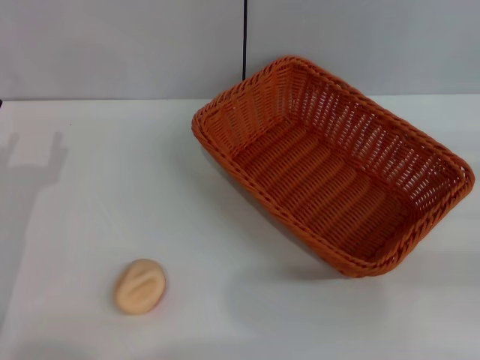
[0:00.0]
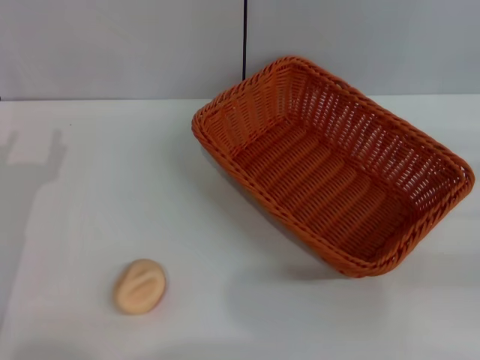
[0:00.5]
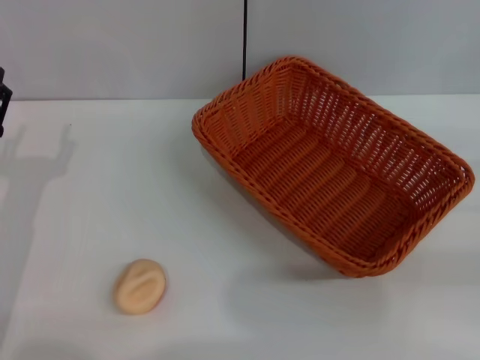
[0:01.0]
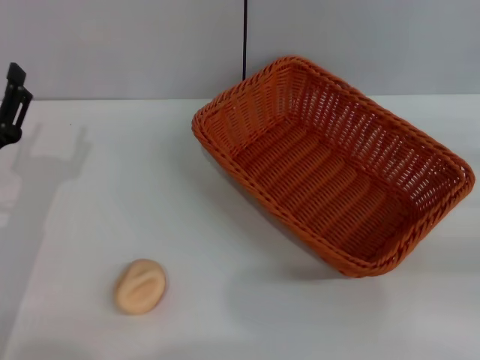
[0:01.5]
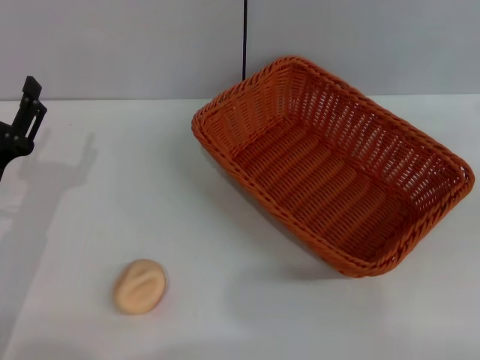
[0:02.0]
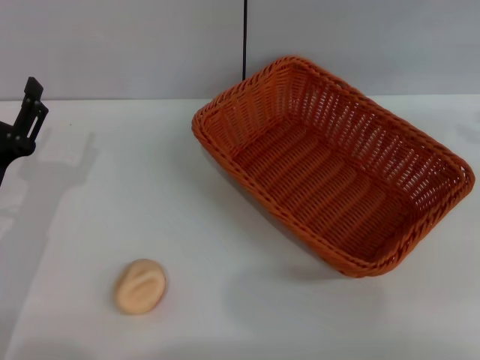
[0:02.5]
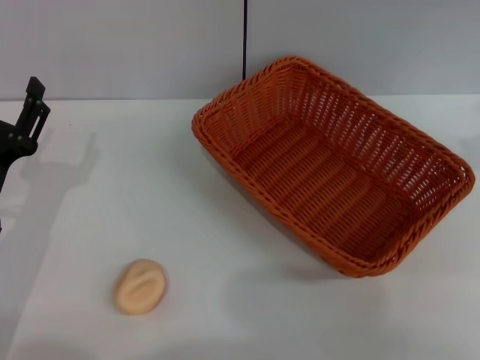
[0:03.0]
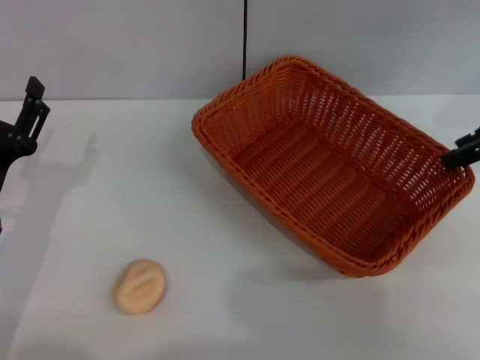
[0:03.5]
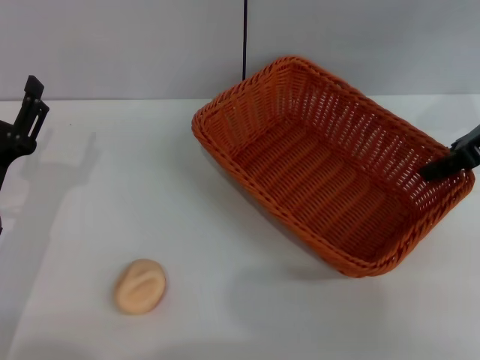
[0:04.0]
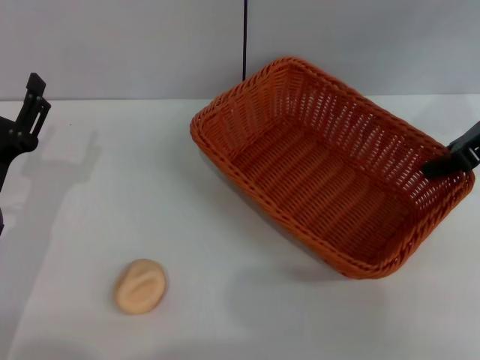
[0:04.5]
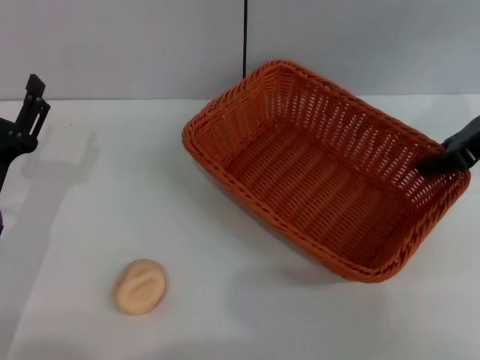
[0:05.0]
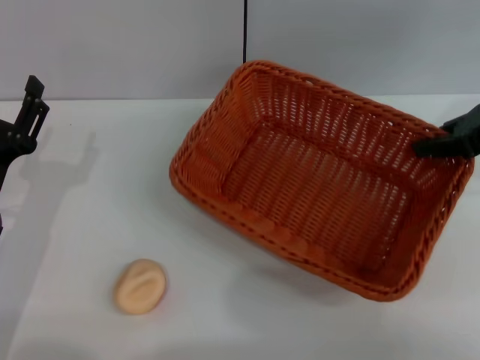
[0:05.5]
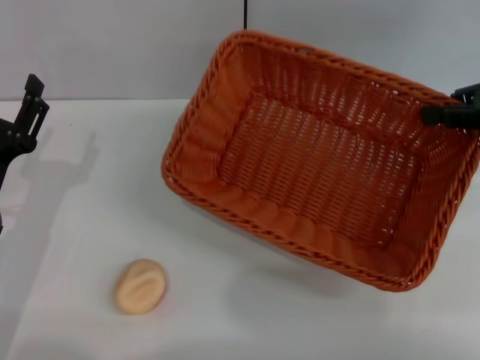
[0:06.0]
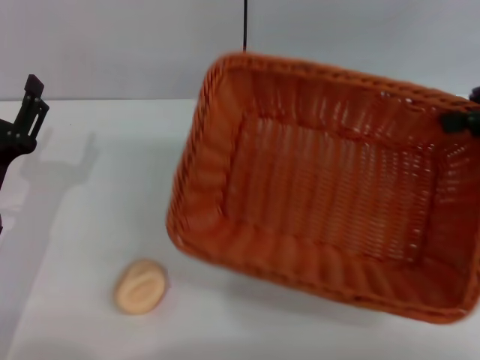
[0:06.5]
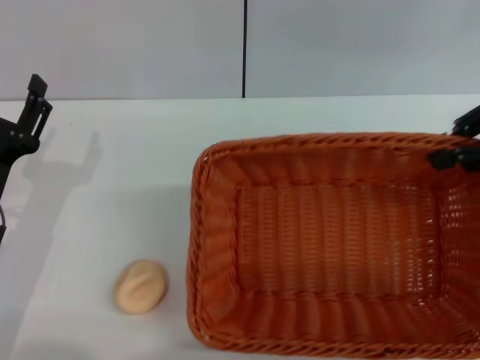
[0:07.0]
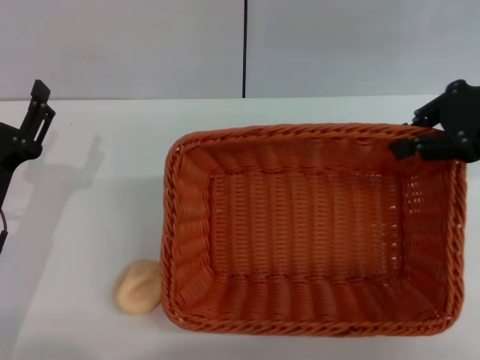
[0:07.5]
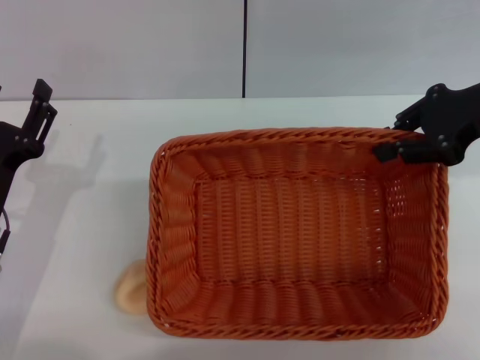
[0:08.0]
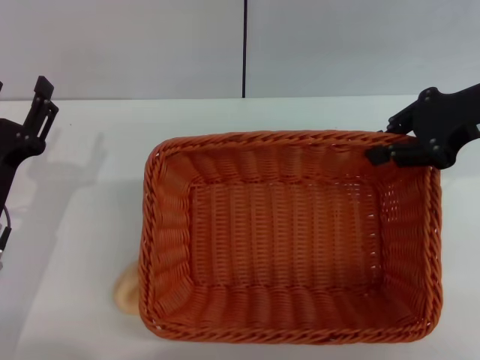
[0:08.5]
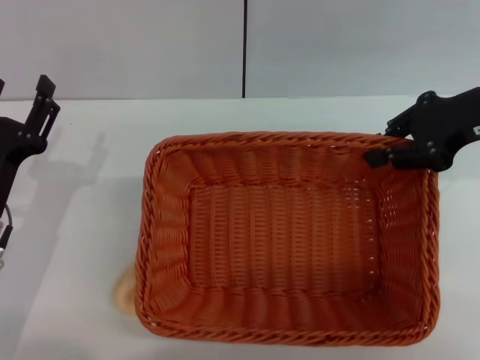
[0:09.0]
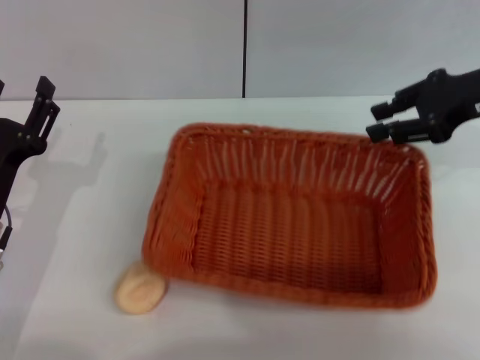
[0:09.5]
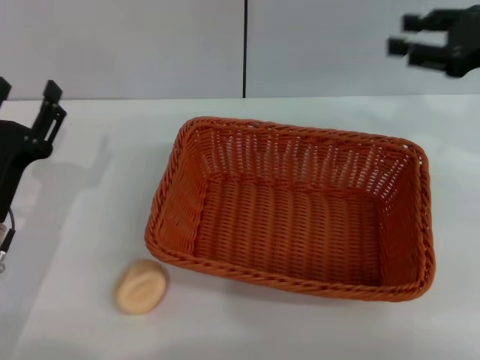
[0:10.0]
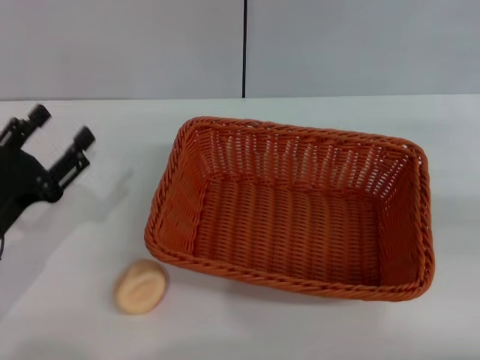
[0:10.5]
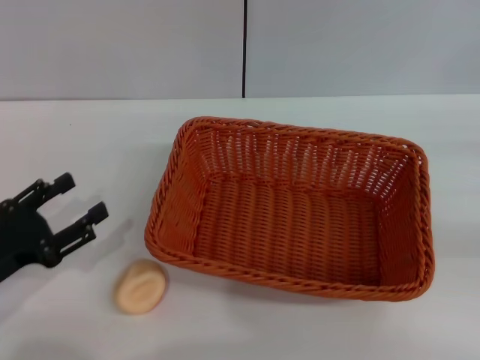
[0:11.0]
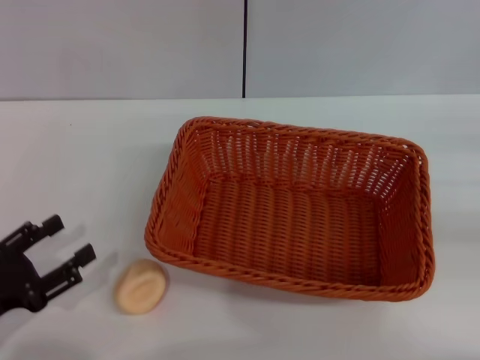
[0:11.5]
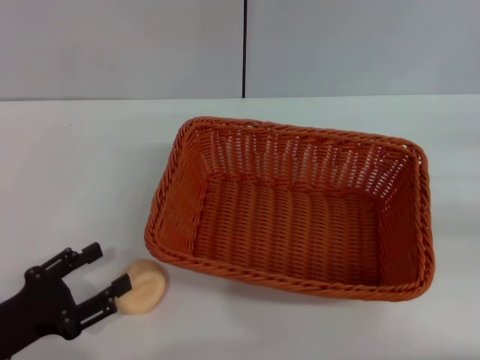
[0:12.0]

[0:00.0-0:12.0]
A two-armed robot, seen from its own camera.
Step, 0:00.0 to 0:09.5: Move the basket to the center of view with the right gripper.
0:02.0 to 0:04.0: The right gripper shifts some 15 cm to the left and forward.
0:04.0 to 0:06.0: The right gripper closes.
0:06.0 to 0:08.0: The right gripper changes place by approximately 5 cm.
0:08.0 to 0:10.0: The right gripper opens up.
0:10.0 to 0:12.0: The left gripper goes about 10 cm backward. Meanwhile the right gripper heads to the right, backward and downward, covering some 20 cm.

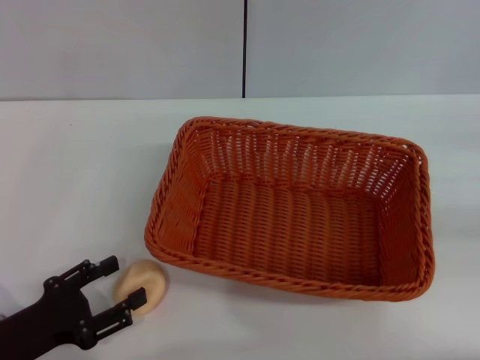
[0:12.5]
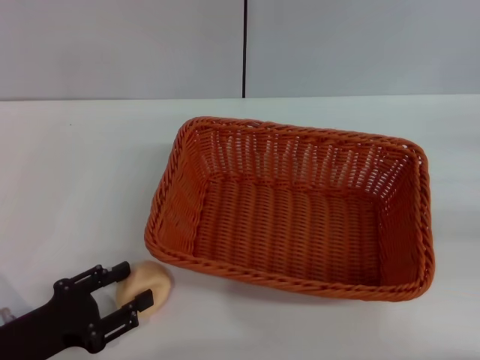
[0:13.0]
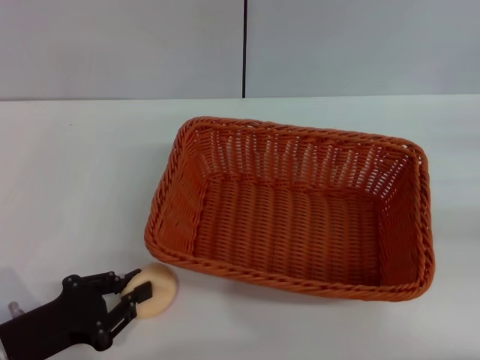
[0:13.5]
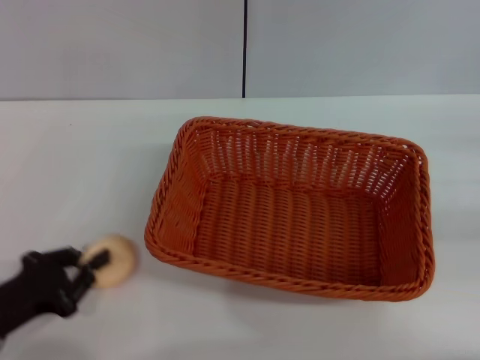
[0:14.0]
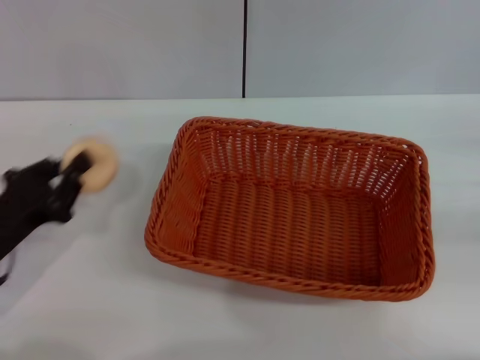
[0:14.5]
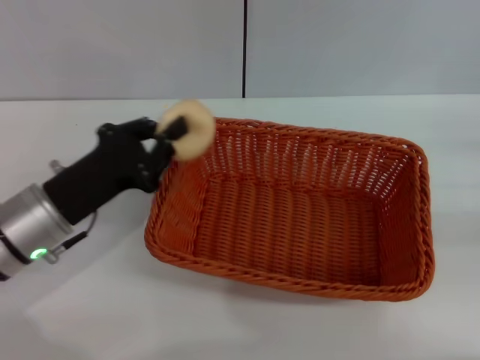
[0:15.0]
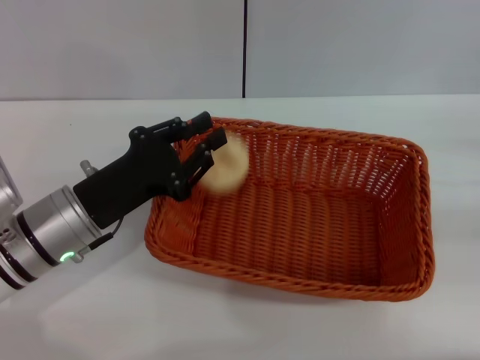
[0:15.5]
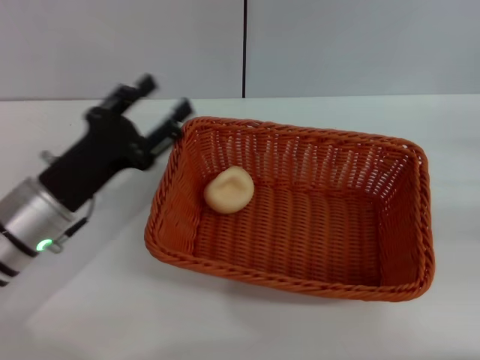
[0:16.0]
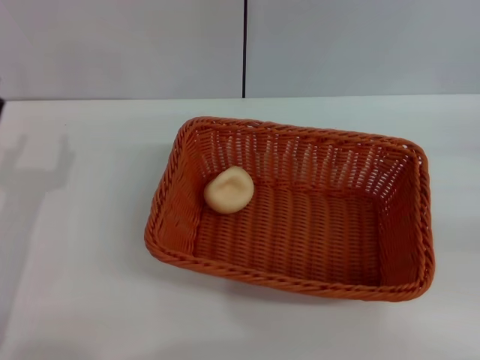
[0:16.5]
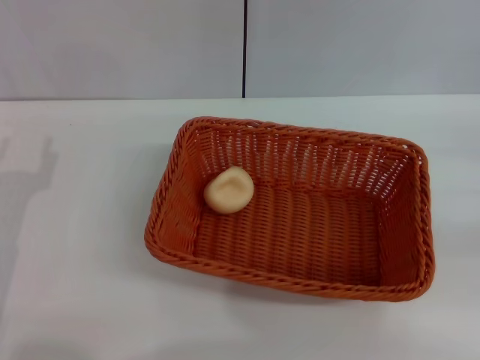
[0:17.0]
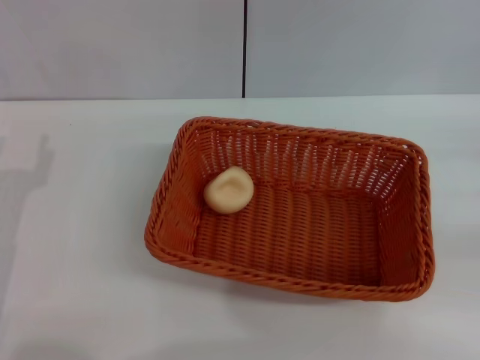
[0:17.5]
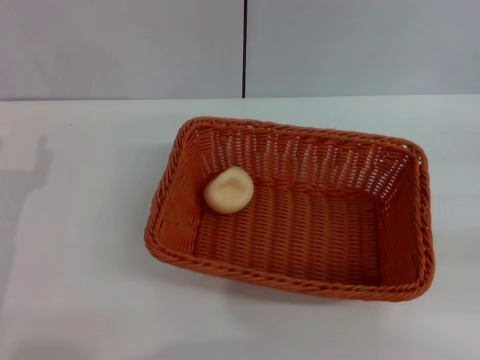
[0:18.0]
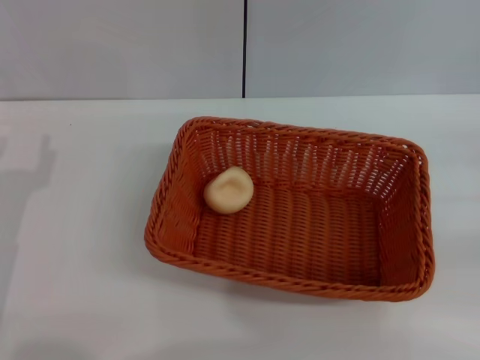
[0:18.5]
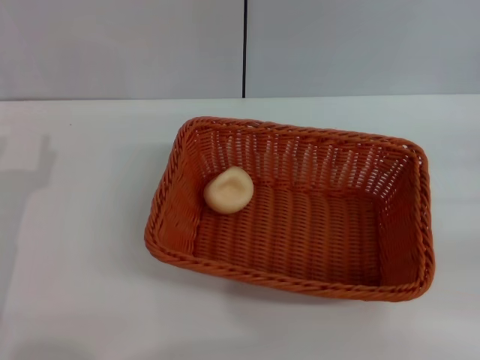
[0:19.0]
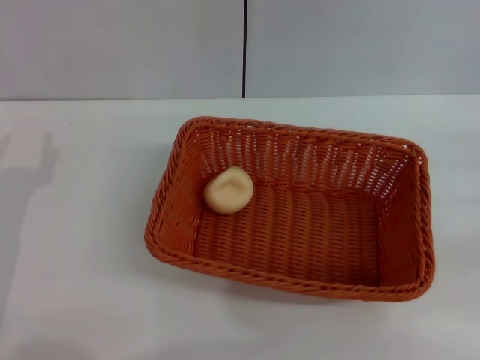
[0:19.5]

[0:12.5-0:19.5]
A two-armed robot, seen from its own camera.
Step, 0:12.5 to 0:14.5: Pick up the egg yolk pastry with the left gripper.
Step, 0:15.0 to 0:15.5: Place the egg yolk pastry into the basket with the left gripper.
0:12.5 to 0:14.5: The left gripper moves forward, roughly 5 cm, and closes its fingers.
0:14.5 to 0:16.0: The left gripper moves to the right and forward, about 10 cm, and opens up.
0:16.0 to 0:17.5: The left gripper goes approximately 5 cm to the left.
0:17.5 to 0:19.5: Neither gripper changes place.
